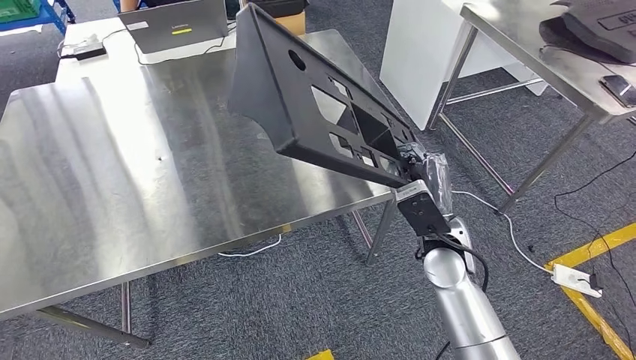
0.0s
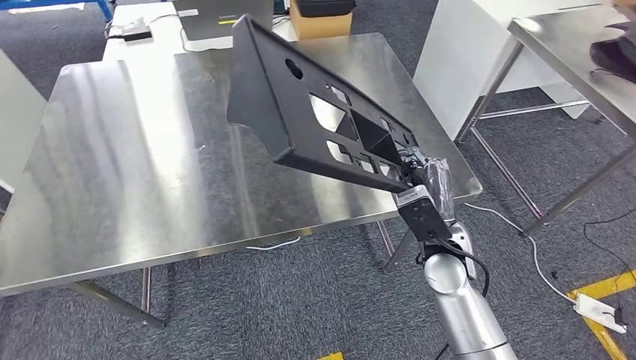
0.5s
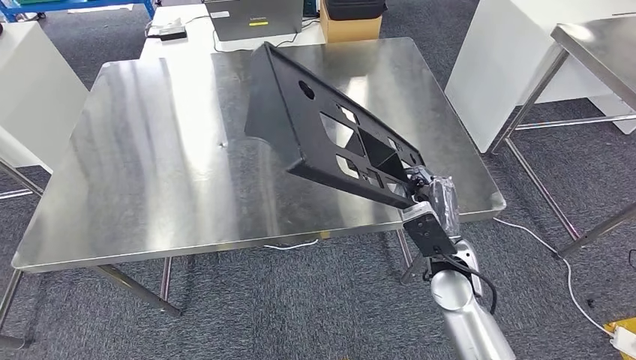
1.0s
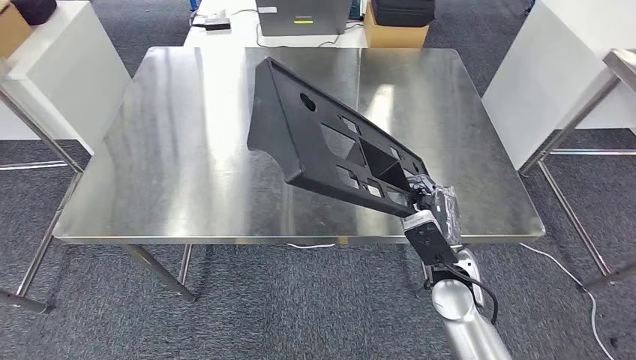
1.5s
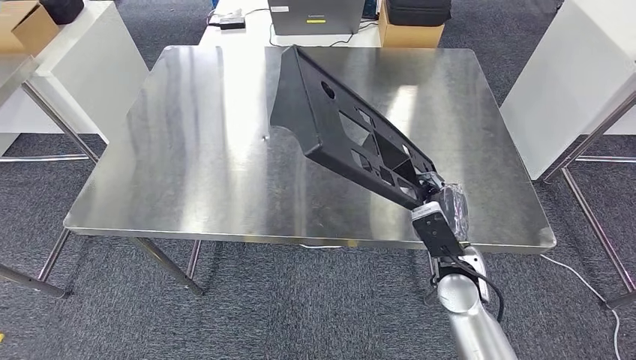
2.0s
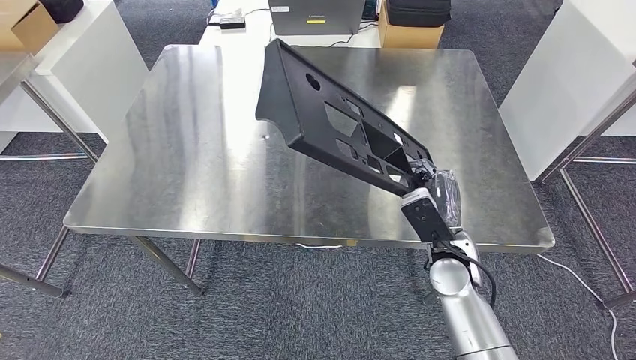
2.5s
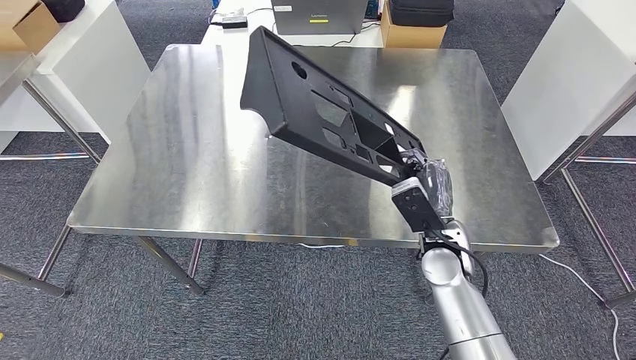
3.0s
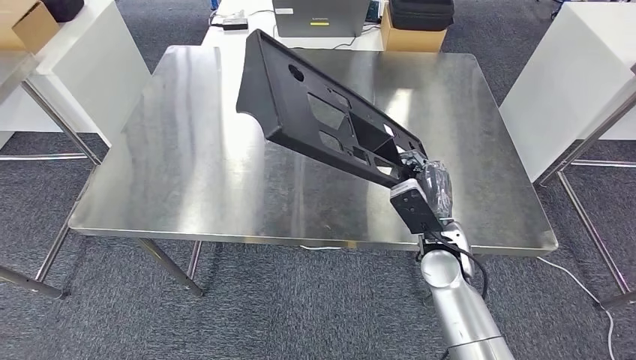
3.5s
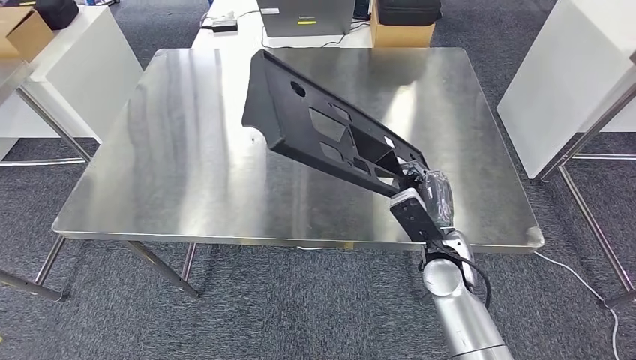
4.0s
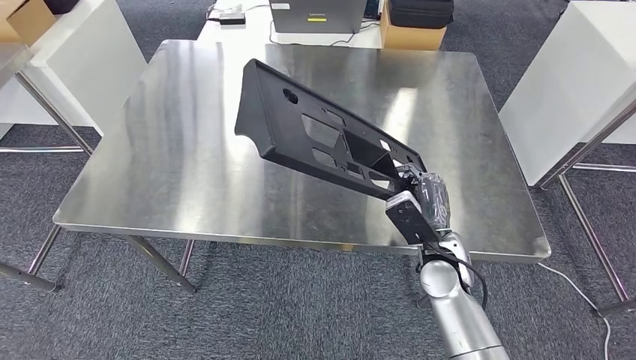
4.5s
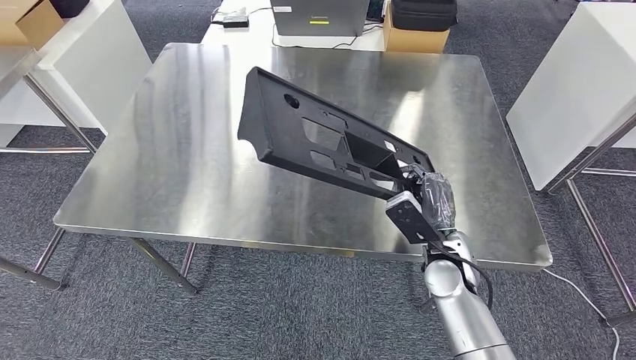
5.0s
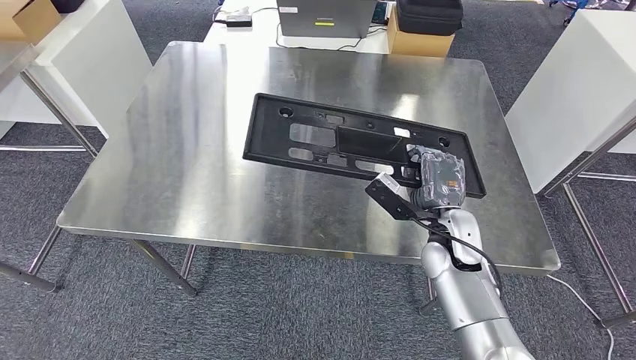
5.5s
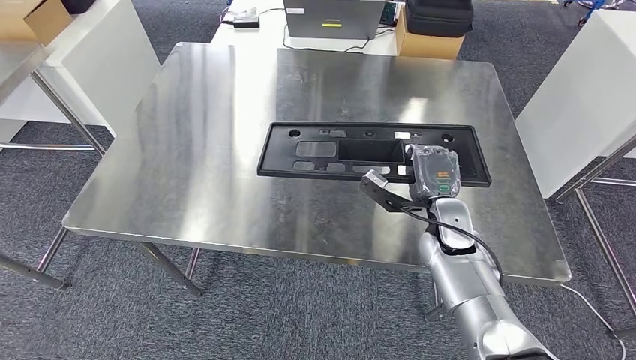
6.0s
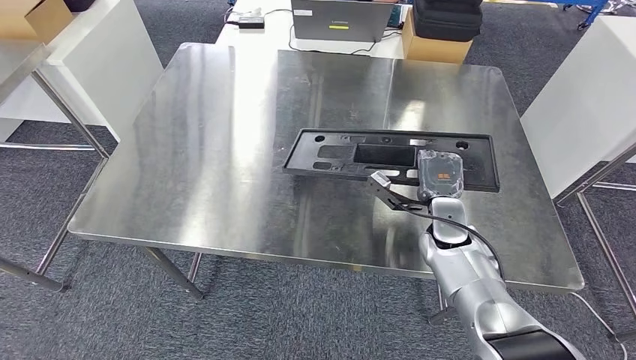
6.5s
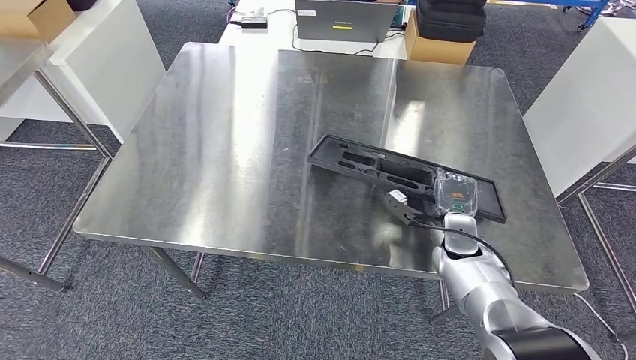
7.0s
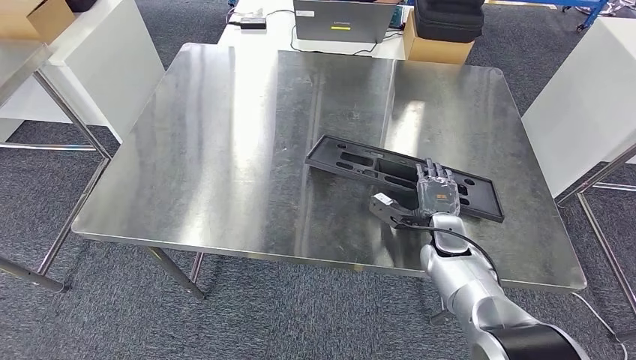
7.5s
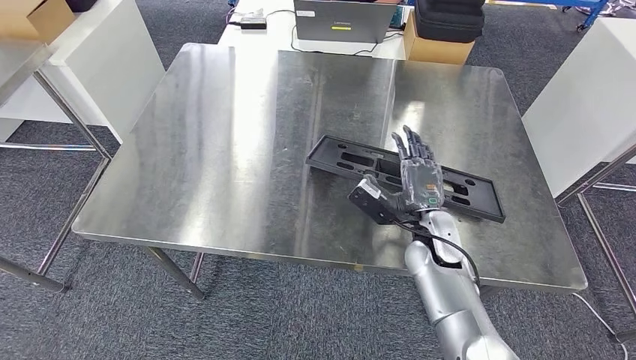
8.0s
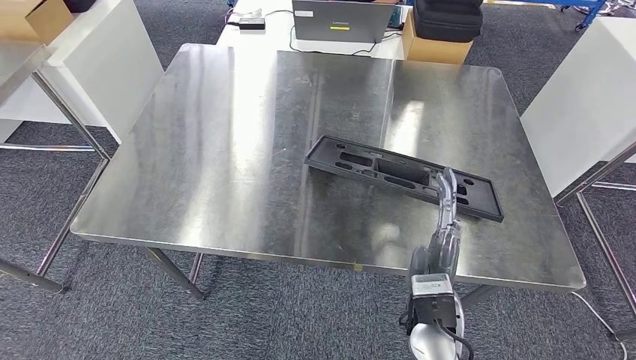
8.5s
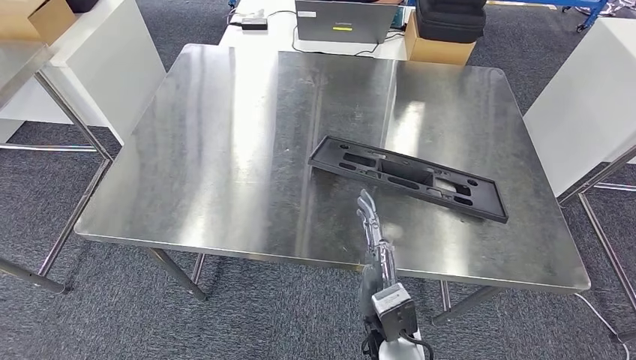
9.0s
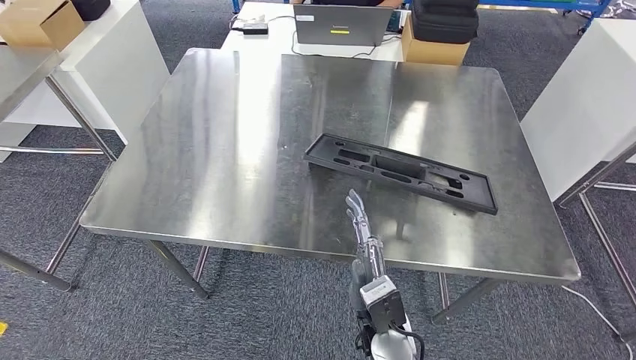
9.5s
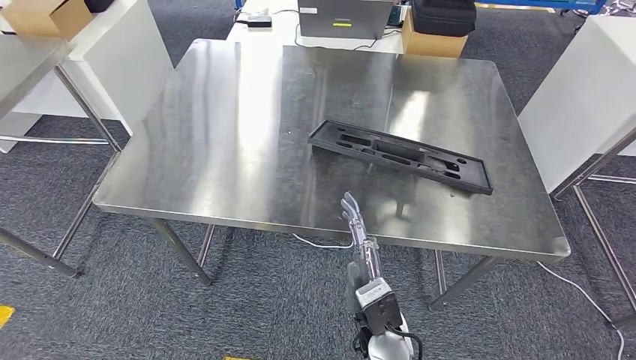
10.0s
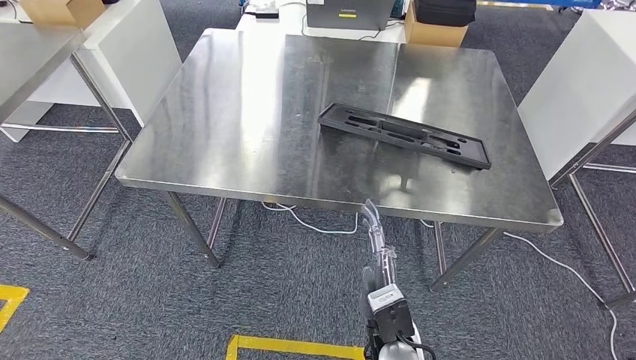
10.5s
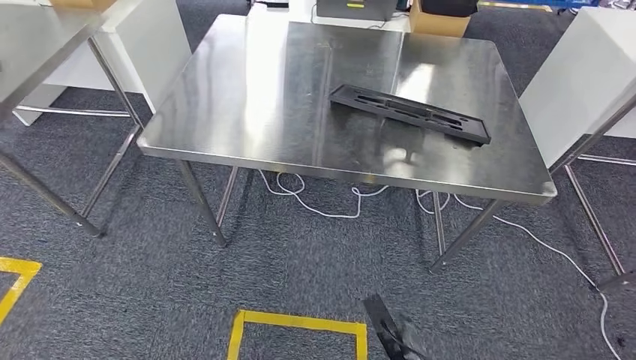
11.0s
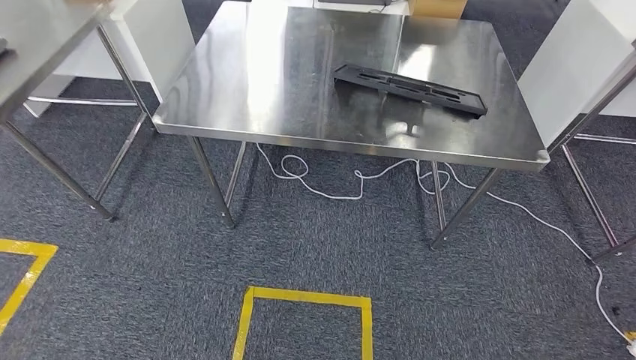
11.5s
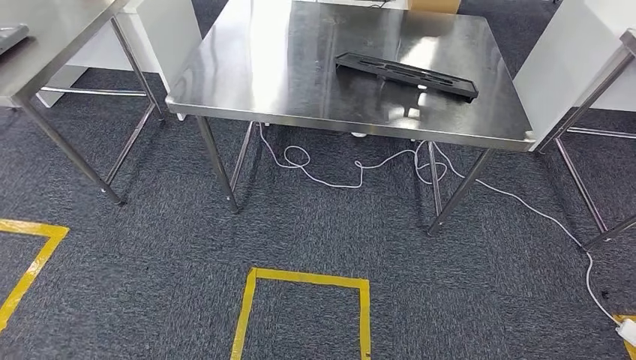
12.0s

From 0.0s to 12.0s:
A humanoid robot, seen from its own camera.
From 2.0s to 4.0s: The hands stay close to where they were, moving slightly.

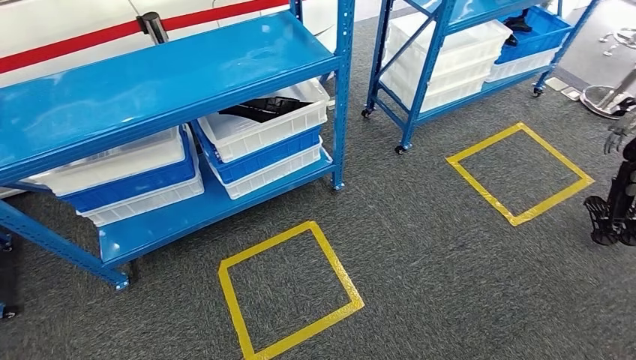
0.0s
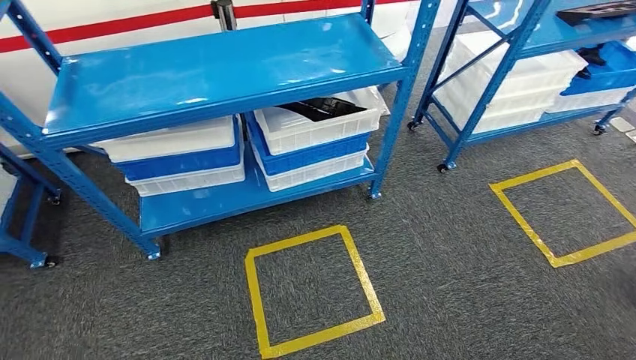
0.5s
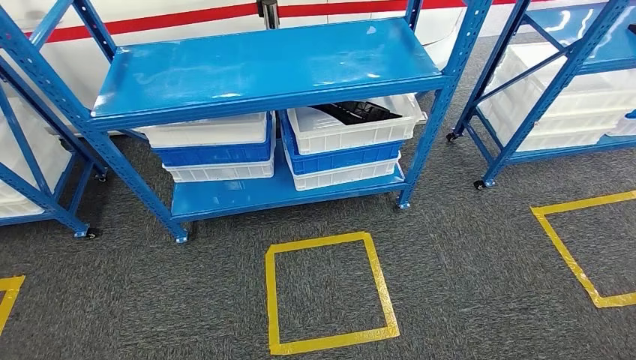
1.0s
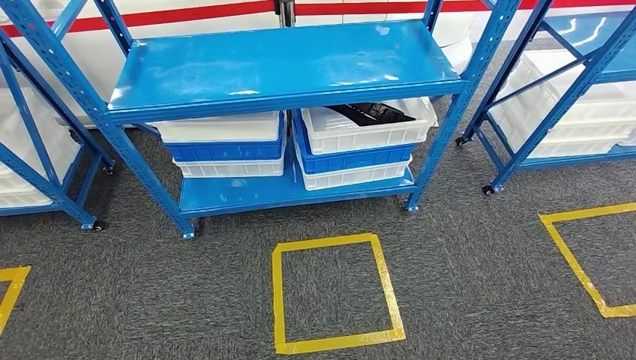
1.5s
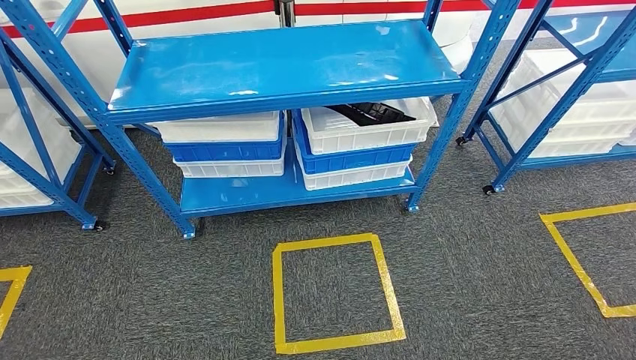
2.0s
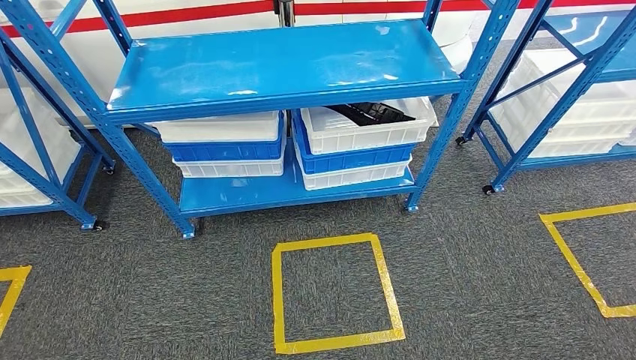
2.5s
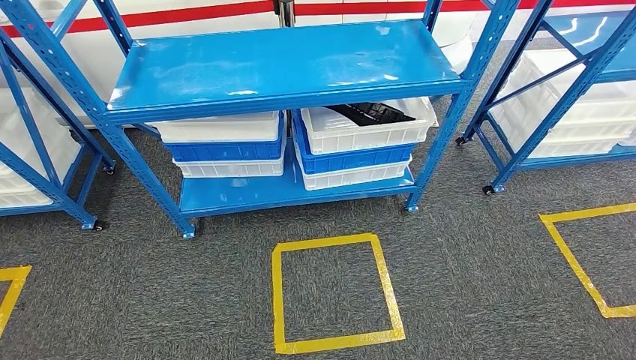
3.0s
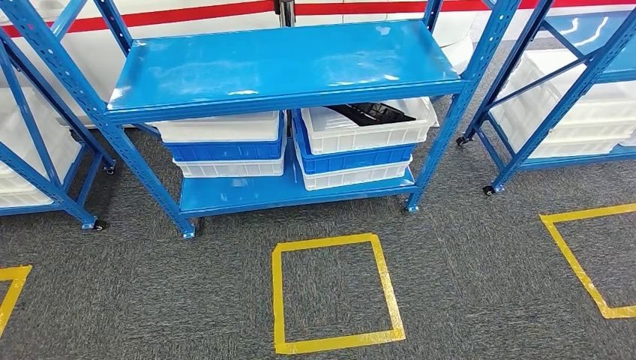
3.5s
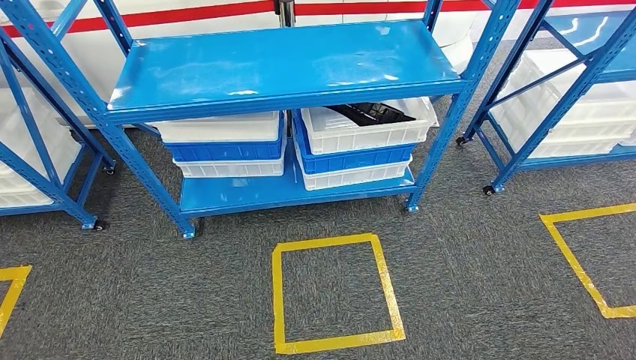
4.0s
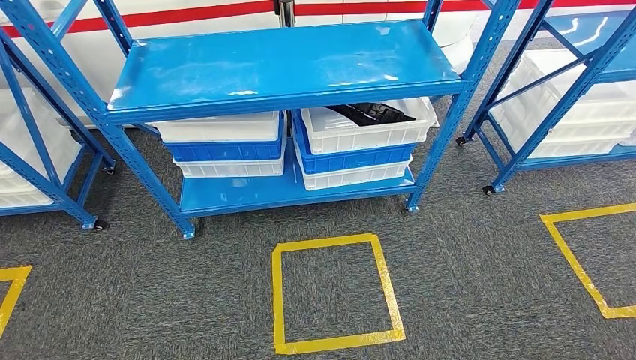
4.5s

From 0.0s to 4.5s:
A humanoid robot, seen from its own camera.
Step, from 0.0s to 4.5s: Move to the initial position of the shelf.
